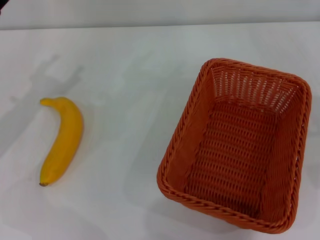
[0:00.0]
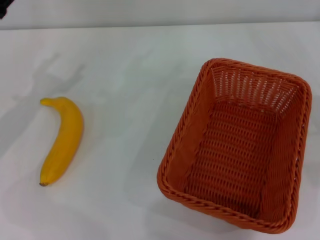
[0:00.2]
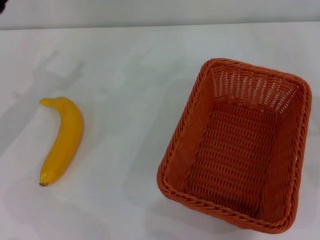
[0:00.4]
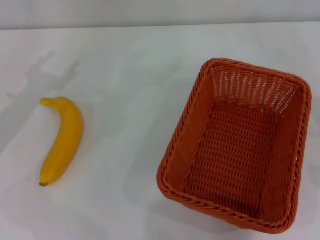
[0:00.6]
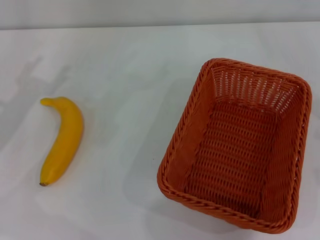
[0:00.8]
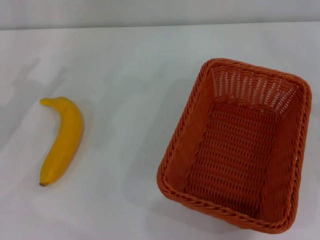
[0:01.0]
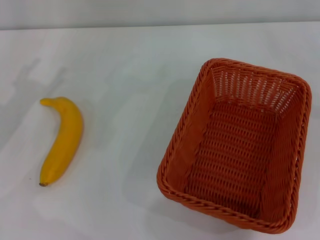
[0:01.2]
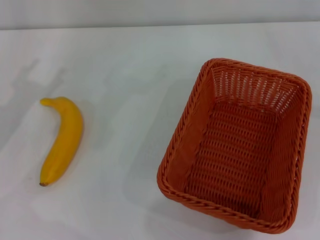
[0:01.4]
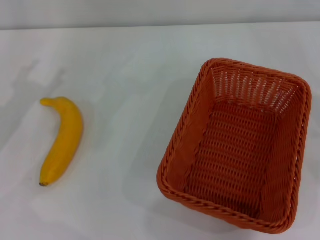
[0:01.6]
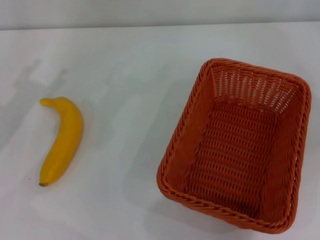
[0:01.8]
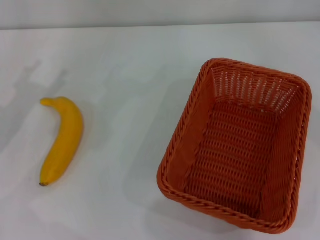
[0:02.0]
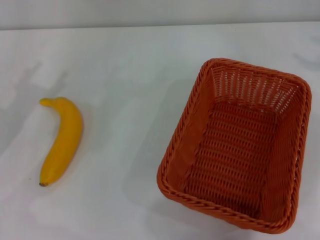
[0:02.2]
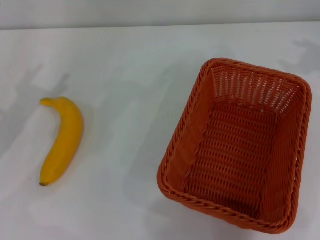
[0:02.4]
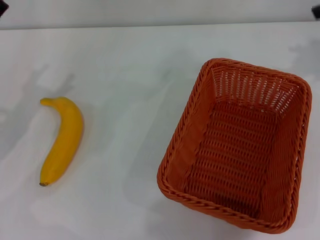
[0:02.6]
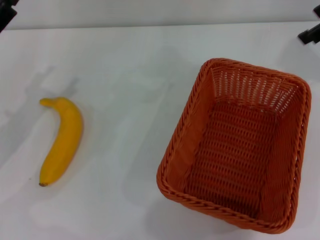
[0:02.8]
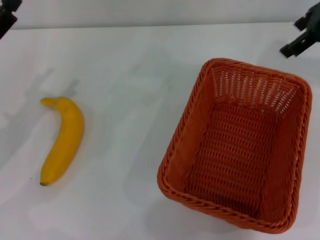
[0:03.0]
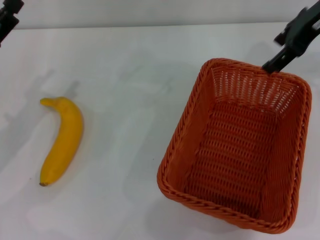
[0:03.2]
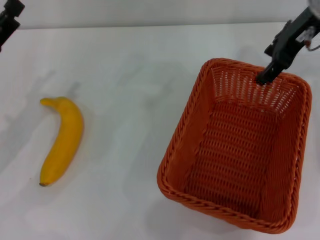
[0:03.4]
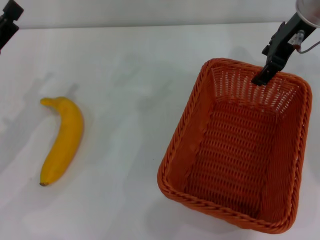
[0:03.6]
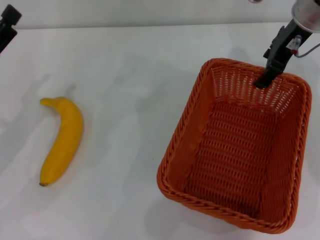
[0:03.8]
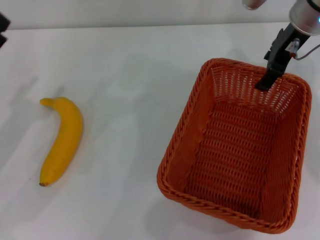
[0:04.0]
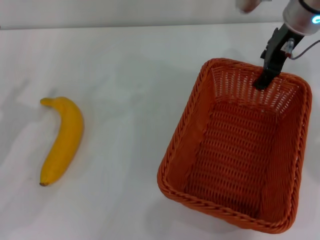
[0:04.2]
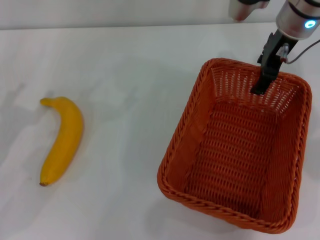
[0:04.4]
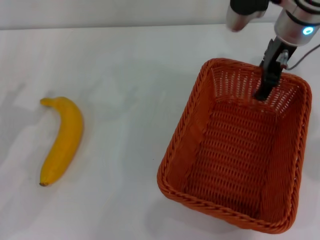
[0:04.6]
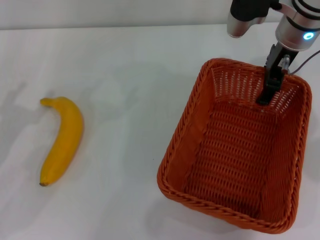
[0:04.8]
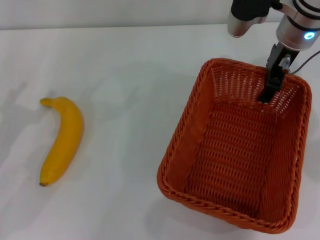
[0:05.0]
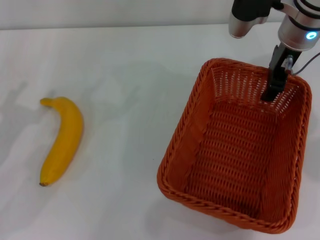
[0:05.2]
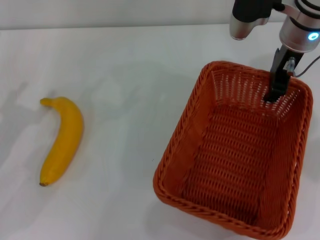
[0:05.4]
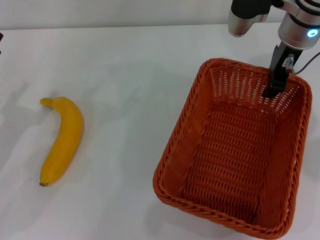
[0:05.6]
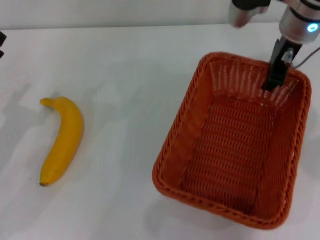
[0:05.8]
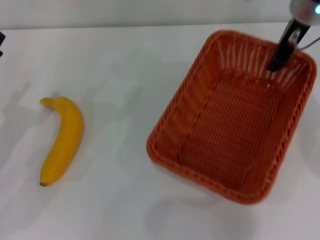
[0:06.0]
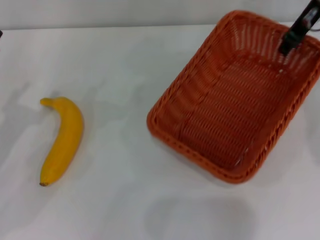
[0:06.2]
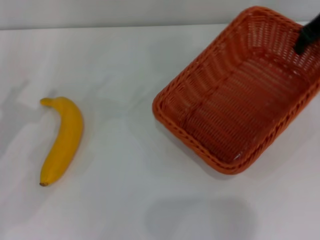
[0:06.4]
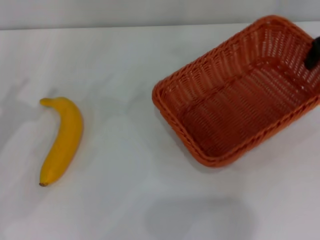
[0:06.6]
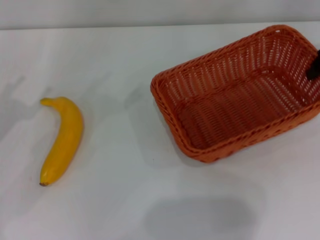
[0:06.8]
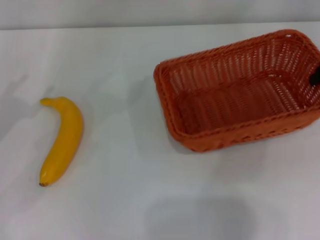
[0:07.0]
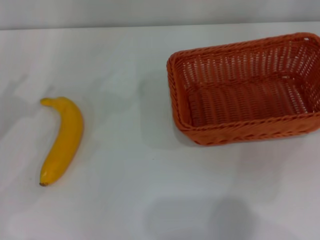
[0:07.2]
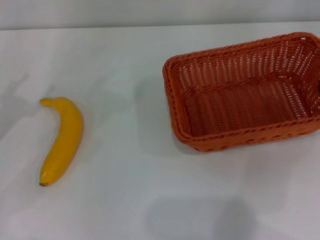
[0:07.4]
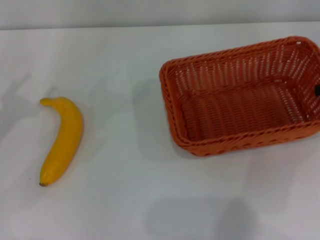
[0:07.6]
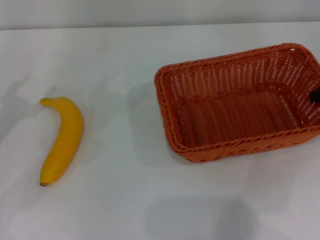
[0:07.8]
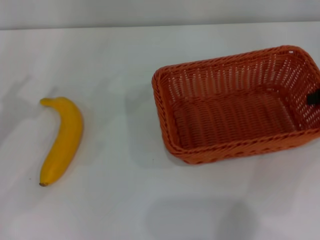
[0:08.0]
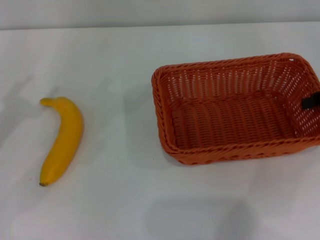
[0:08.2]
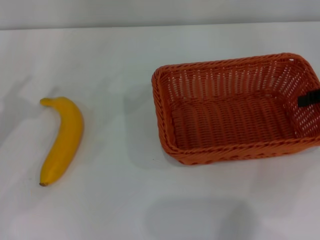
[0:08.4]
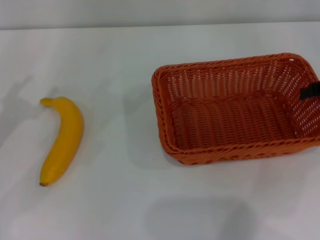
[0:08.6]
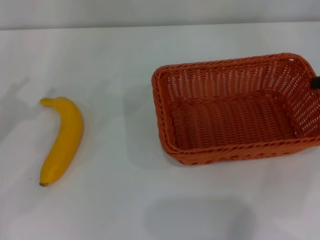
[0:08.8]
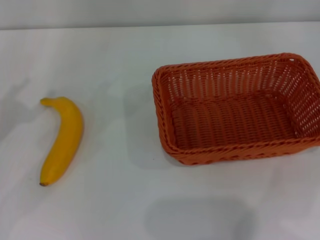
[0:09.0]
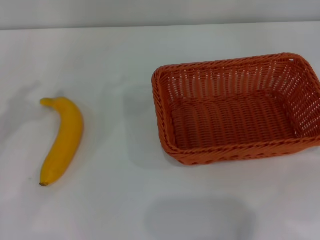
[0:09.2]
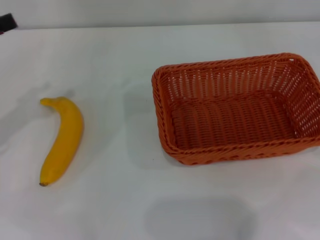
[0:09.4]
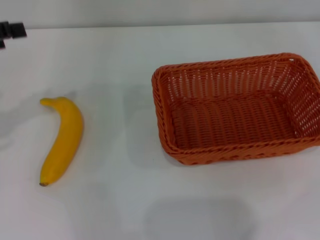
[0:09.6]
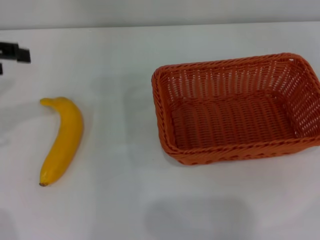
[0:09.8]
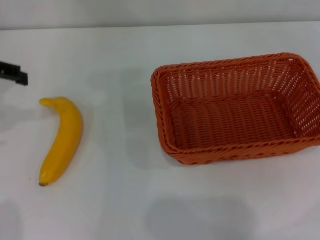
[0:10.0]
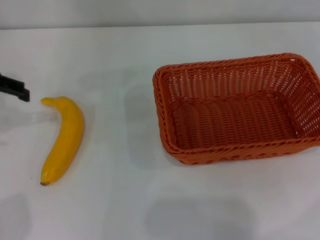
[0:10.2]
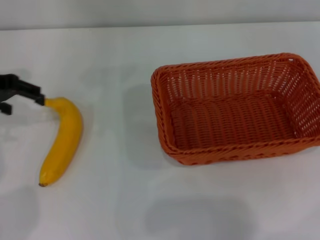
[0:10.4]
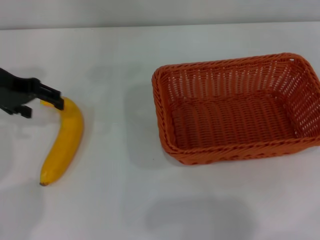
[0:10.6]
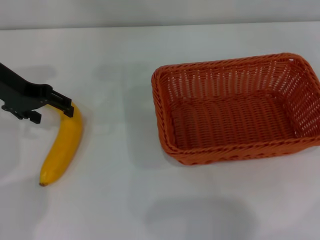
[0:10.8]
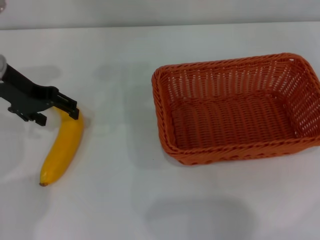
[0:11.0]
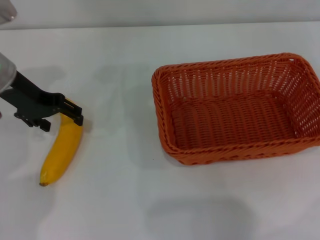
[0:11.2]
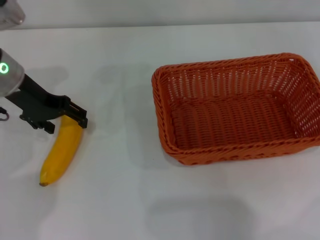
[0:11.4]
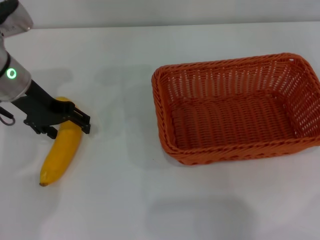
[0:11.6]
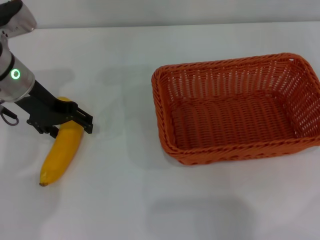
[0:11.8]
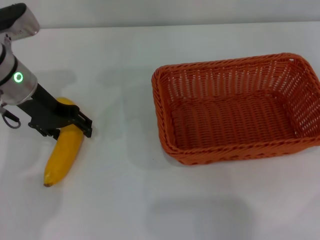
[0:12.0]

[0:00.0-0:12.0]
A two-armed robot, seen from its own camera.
Step, 0:00.0 to 0:06.0: Pick up the light basket with the right gripper.
Step, 0:06.2 to 0:08.8: Place the light basket in the center of view with the right gripper.
0:01.6 to 0:03.0: The right gripper moves to the left, forward and upward, some 30 cm.
0:03.0 to 0:04.4: The right gripper travels to the left and downward by about 10 cm.
0:04.4 to 0:06.0: The right gripper closes up.
0:06.0 to 0:07.6: The right gripper moves to the right and backward, approximately 20 cm. The left gripper ends up approximately 5 cm from where it was.
0:07.6 to 0:09.0: The right gripper shifts by roughly 5 cm, and opens up.
0:09.0 to 0:10.4: The left gripper shifts some 15 cm forward, to the right and upward.
0:10.4 to 0:12.0: The left gripper goes roughly 10 cm to the right and downward.

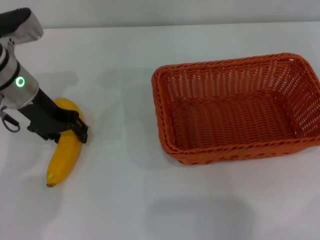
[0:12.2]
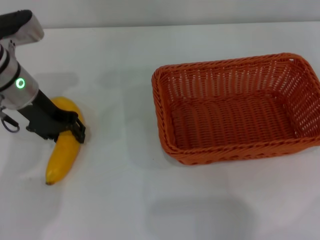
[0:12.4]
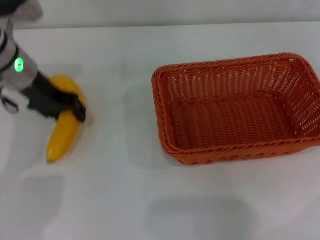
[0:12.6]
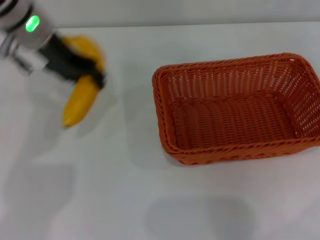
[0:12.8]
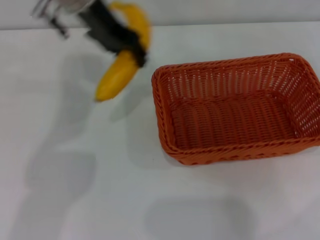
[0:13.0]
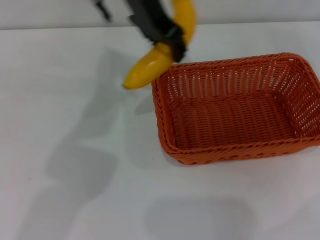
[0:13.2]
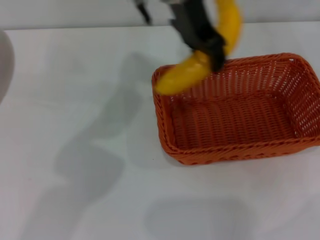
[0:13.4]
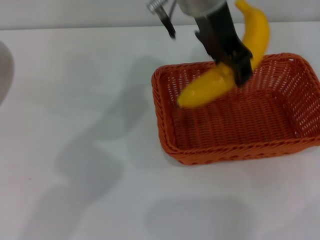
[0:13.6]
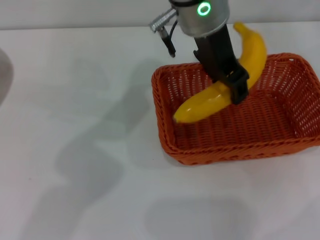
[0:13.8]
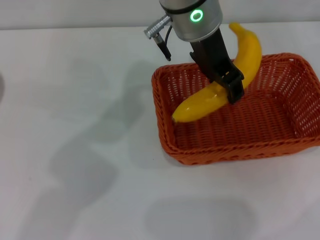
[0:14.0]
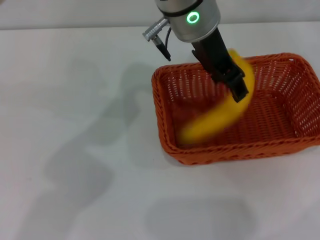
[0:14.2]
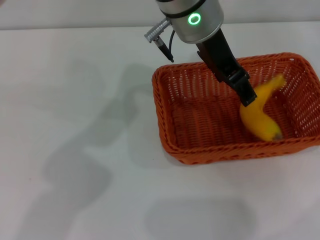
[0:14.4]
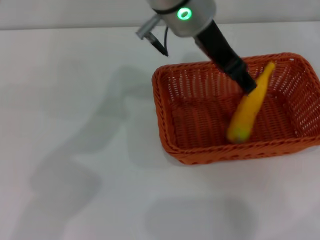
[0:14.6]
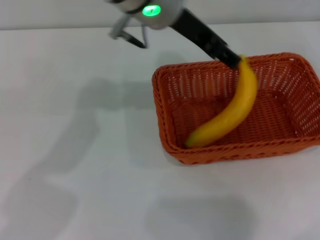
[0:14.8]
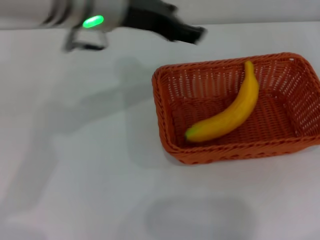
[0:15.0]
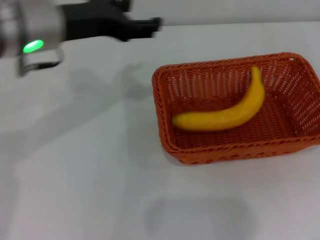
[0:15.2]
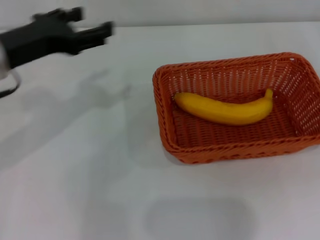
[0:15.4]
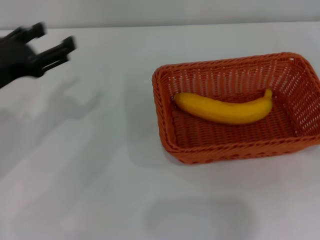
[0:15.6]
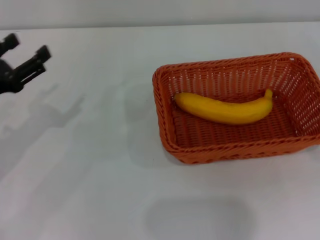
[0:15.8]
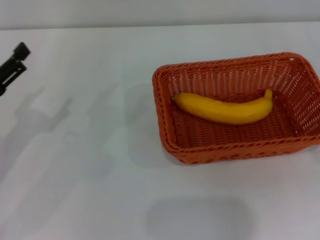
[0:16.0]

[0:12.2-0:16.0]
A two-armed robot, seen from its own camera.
Step, 0:12.8 to 0:14.8: Place the banana into the light basket with the left gripper.
0:12.2 to 0:13.4: The left gripper heads to the right and upward, covering some 30 cm, and closes up.
0:13.4 to 0:14.8: The left gripper shifts by some 5 cm, and opens up.
0:14.8 to 0:16.0: The right gripper is displaced downward by roughly 10 cm. The left gripper heads to the left, downward and backward, covering roughly 35 cm.
